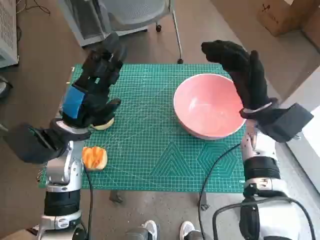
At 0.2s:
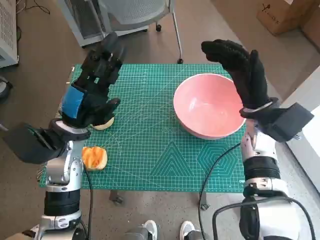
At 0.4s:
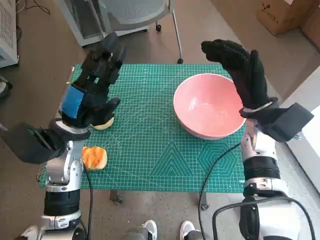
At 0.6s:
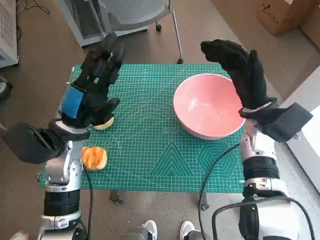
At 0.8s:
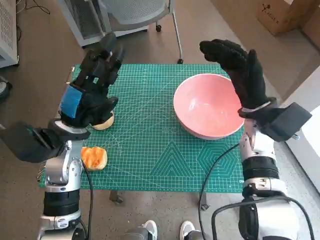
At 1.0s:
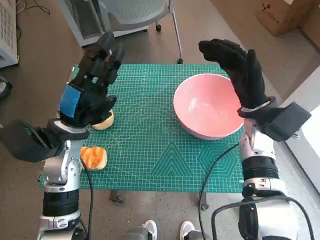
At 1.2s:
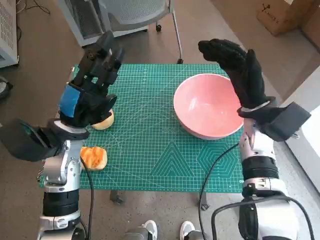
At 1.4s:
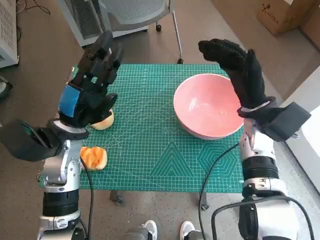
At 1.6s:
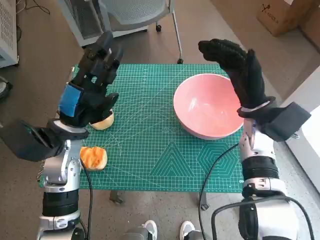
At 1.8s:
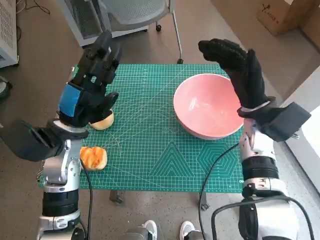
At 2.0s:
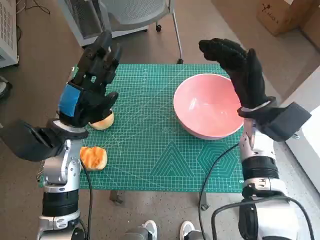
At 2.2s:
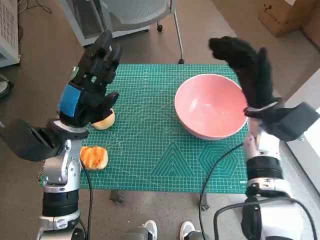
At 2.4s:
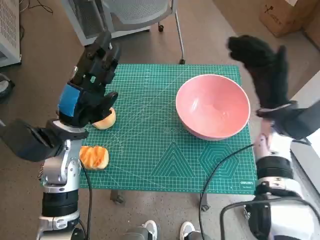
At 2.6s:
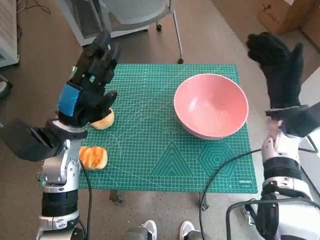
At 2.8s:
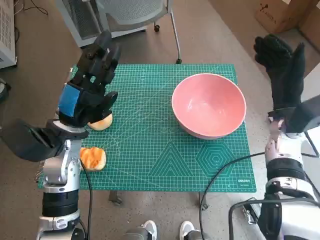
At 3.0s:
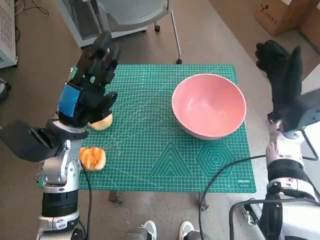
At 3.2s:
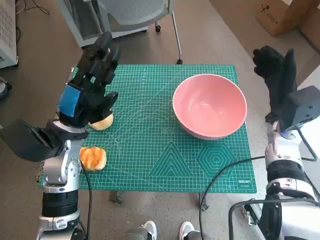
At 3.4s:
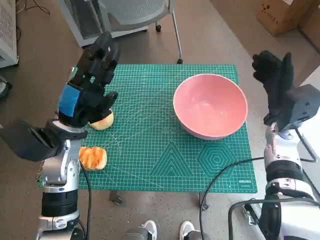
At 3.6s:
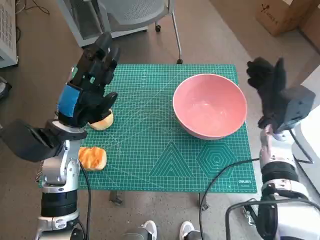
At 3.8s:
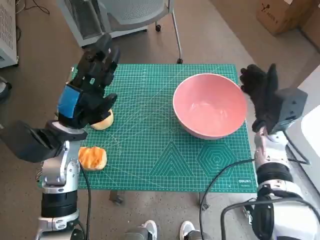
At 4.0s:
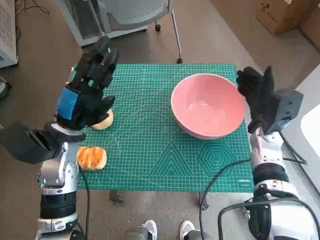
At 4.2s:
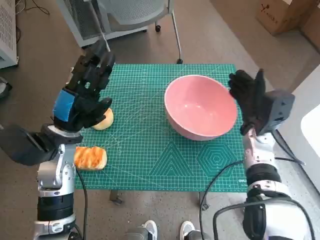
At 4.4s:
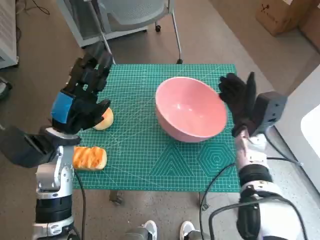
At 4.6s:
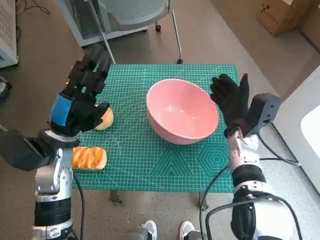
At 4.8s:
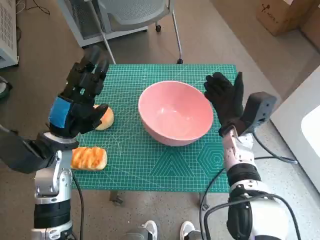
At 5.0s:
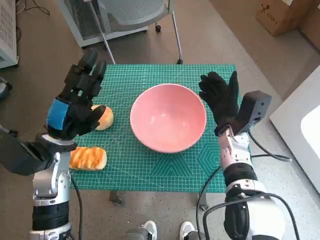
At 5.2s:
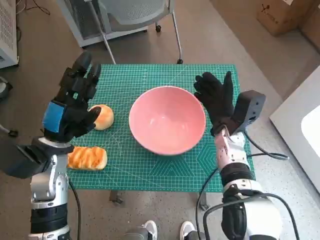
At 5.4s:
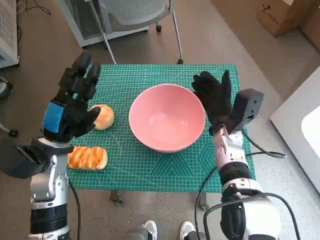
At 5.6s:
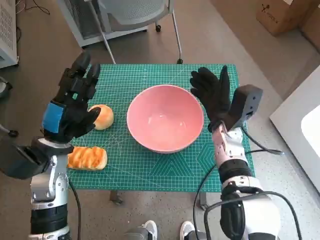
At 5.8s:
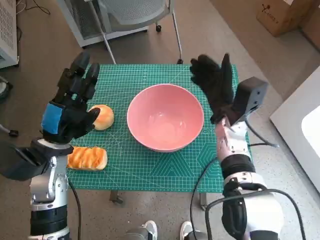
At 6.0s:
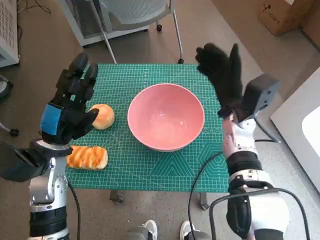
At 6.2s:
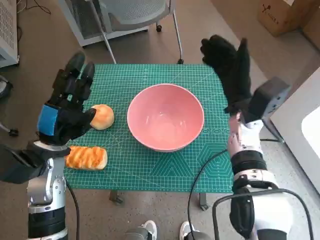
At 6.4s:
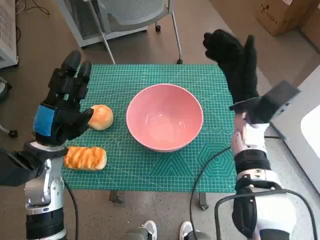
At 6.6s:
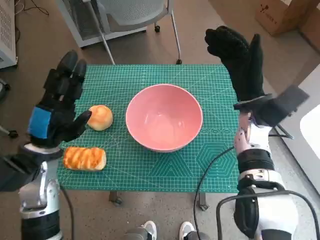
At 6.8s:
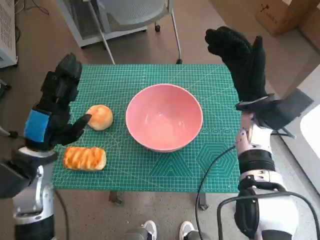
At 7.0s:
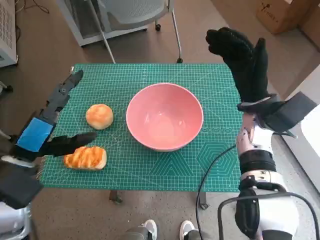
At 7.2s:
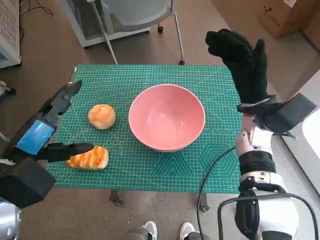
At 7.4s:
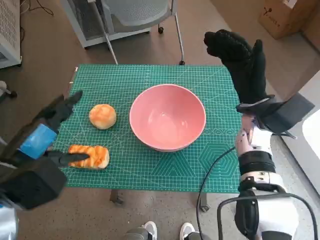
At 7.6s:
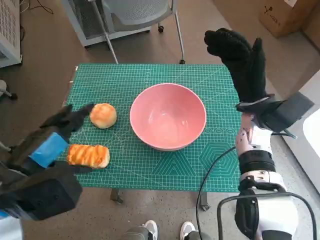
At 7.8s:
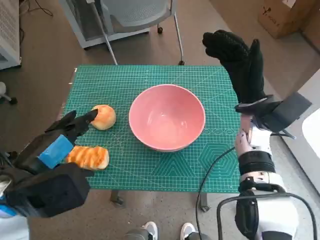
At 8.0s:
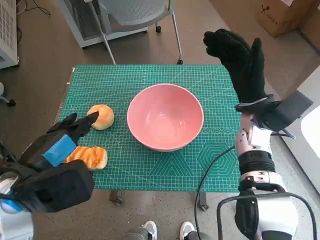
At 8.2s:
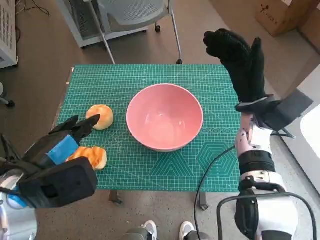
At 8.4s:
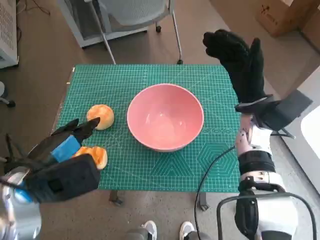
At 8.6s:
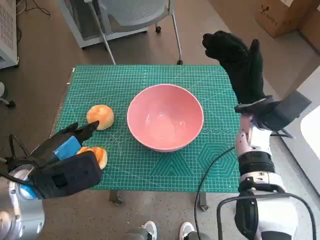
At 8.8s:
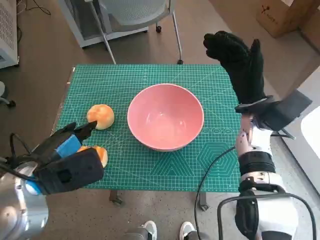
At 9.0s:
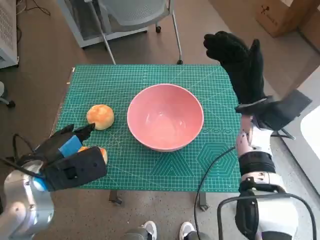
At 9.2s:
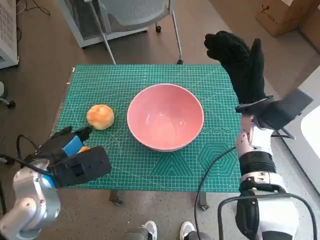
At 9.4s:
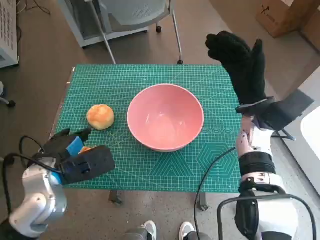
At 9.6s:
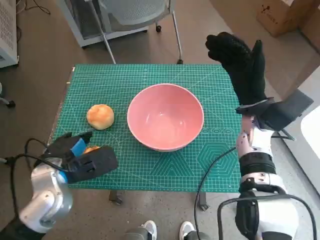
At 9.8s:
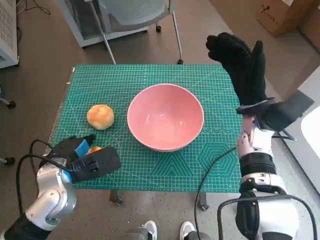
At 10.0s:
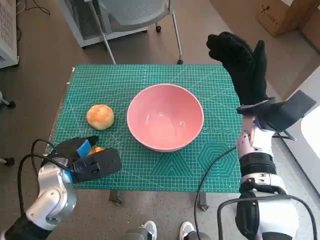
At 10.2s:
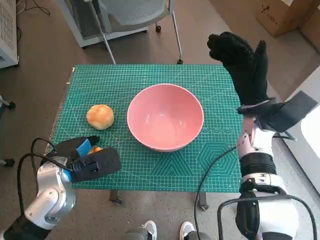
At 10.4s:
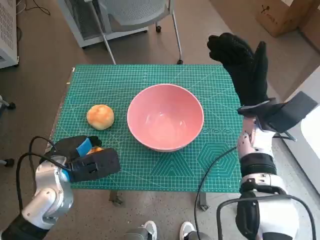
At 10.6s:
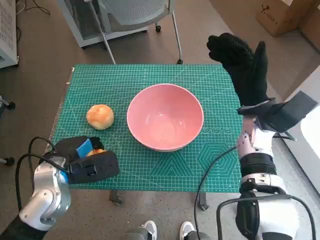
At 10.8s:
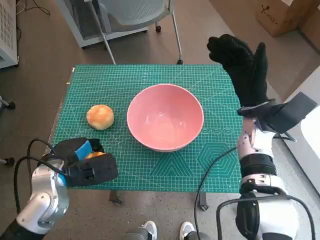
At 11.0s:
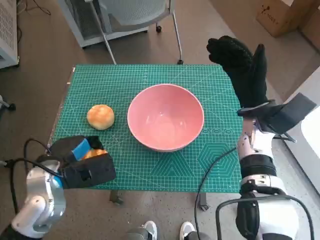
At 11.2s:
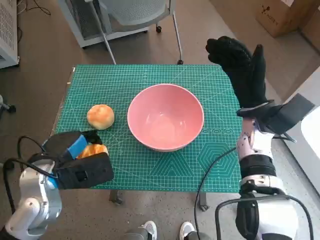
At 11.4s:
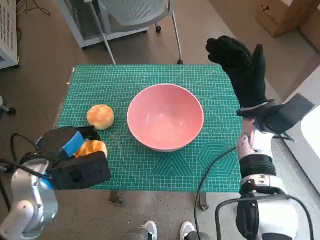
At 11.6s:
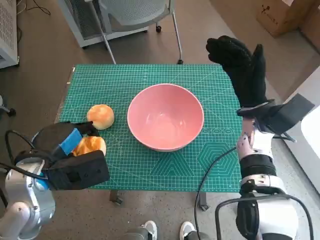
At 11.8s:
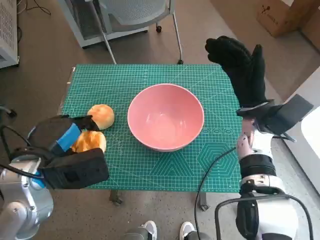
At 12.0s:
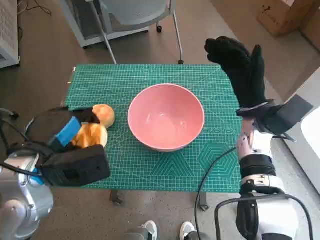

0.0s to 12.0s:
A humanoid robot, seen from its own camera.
Step, 0.0s to 5.6s: Move the pink bowl to the center of table with right hand.
Step, 5.8s to 10.4s: Grasp the long bread with left hand.
1.6s to 3.0s: The right hand travels to the right by about 5 cm.
3.0s to 4.4s: The right hand shifts approximately 5 cm downward and to the left.
4.4s to 6.0s: The right hand moves some 5 cm.
6.0s to 7.6s: The left hand travels backward and upward by roughly 10 cm. Meanwhile the right hand ends up some 5 cm from where it was.
7.6s to 9.0s: The left hand moves about 5 cm.
9.0s to 10.4s: The left hand goes about 5 cm downward.
10.4s to 12.0s: The left hand heads upward, covering roughly 10 cm.

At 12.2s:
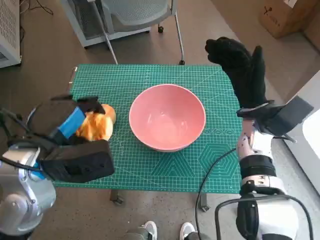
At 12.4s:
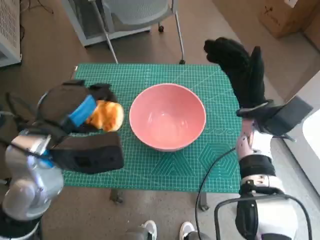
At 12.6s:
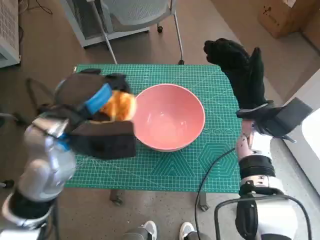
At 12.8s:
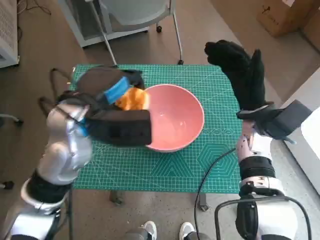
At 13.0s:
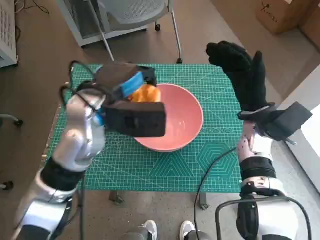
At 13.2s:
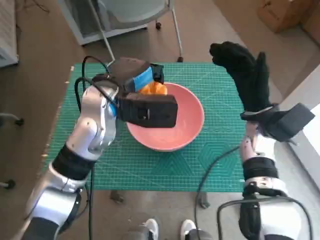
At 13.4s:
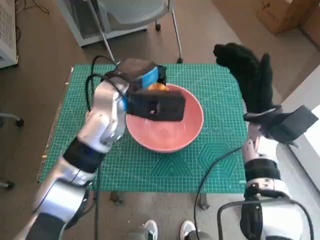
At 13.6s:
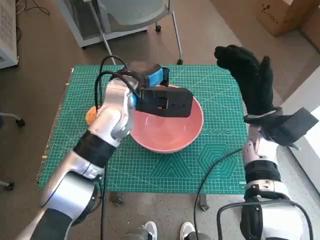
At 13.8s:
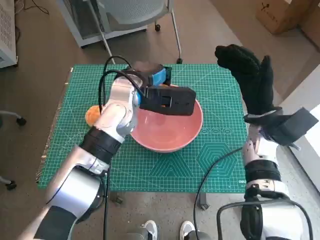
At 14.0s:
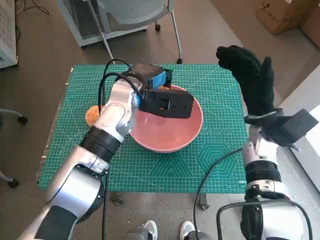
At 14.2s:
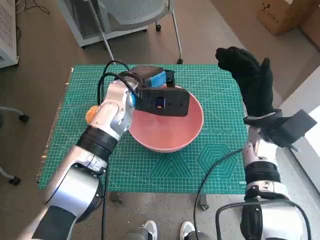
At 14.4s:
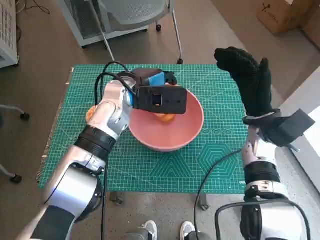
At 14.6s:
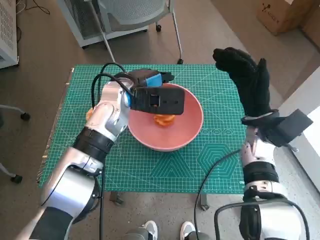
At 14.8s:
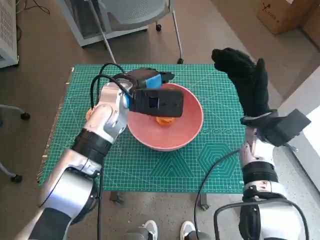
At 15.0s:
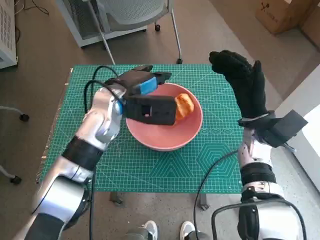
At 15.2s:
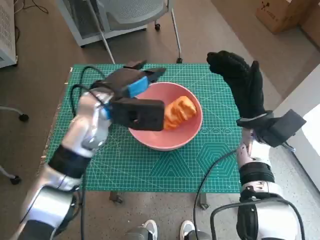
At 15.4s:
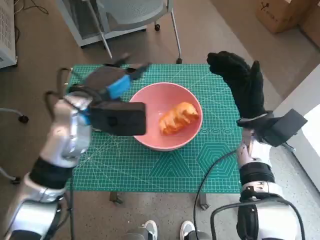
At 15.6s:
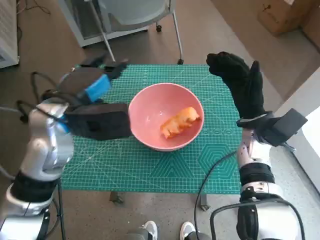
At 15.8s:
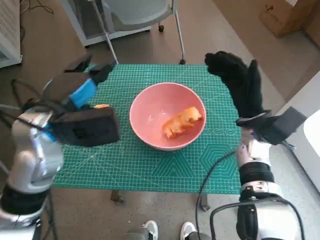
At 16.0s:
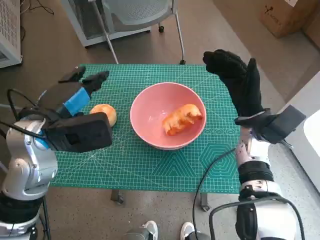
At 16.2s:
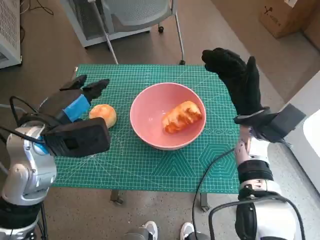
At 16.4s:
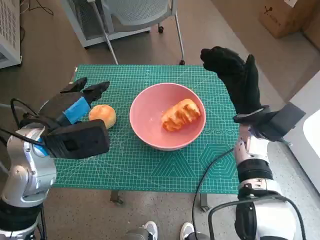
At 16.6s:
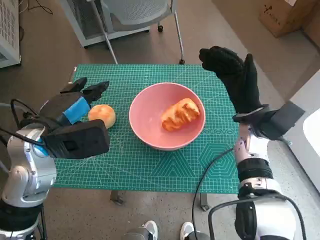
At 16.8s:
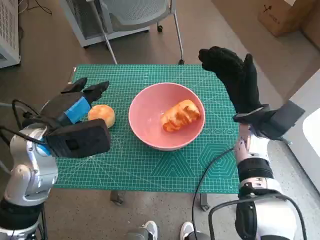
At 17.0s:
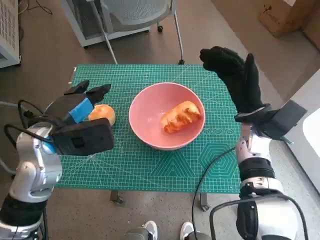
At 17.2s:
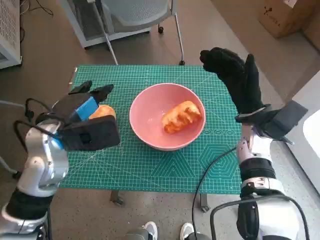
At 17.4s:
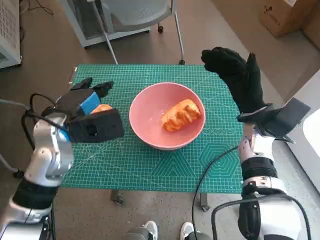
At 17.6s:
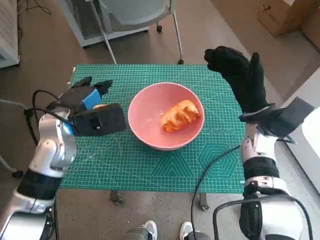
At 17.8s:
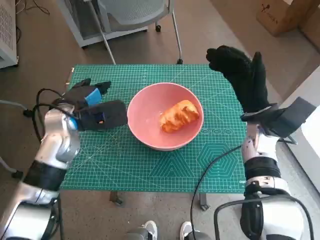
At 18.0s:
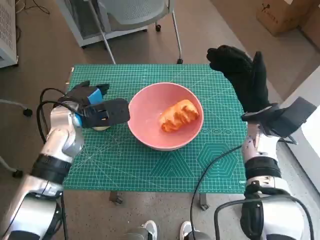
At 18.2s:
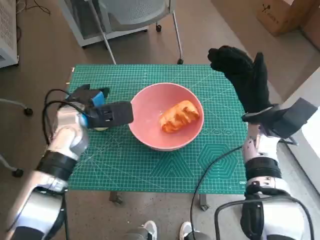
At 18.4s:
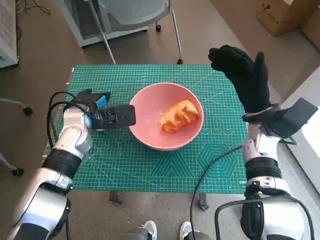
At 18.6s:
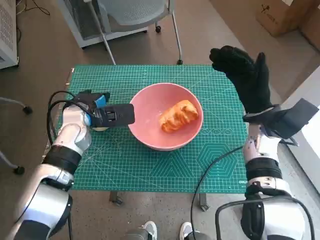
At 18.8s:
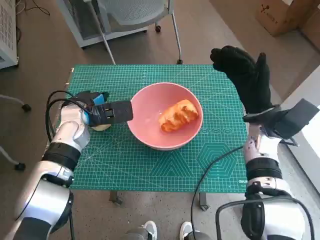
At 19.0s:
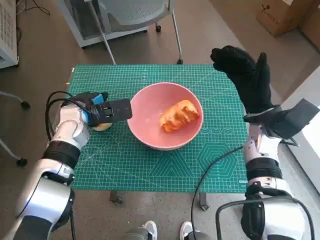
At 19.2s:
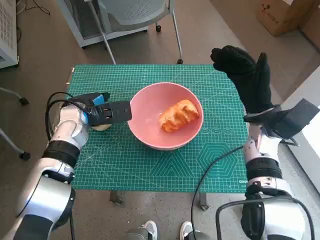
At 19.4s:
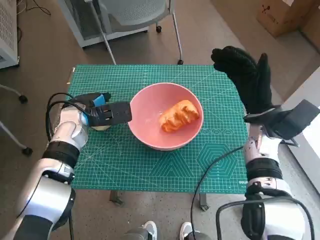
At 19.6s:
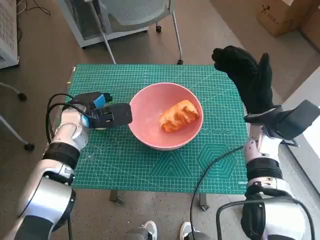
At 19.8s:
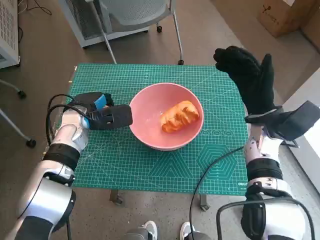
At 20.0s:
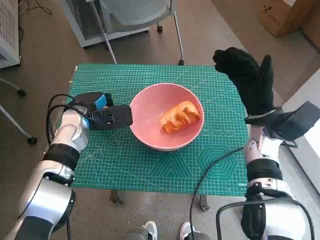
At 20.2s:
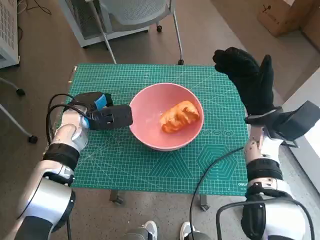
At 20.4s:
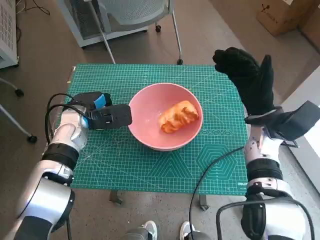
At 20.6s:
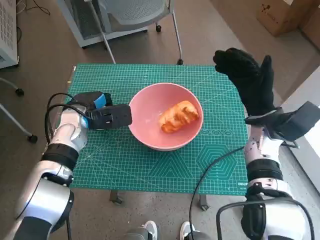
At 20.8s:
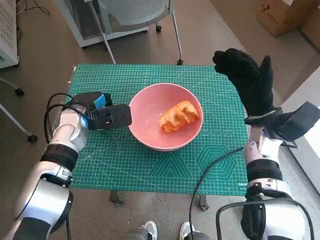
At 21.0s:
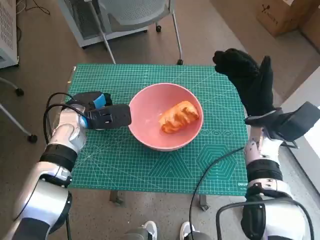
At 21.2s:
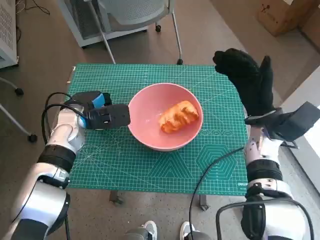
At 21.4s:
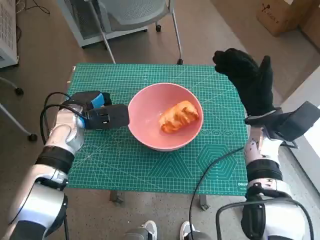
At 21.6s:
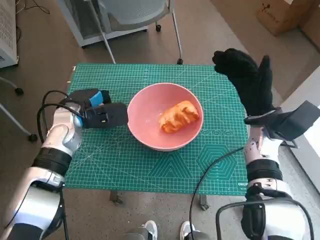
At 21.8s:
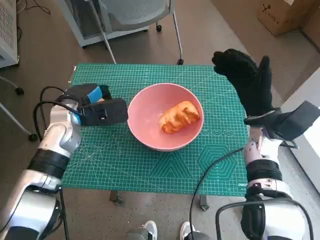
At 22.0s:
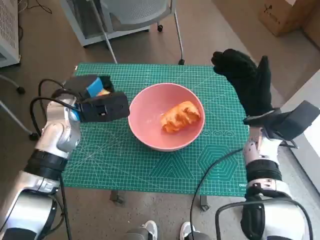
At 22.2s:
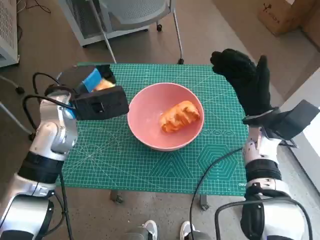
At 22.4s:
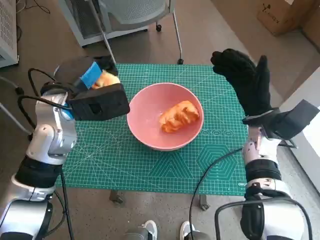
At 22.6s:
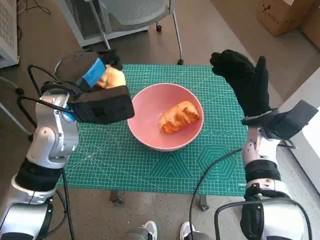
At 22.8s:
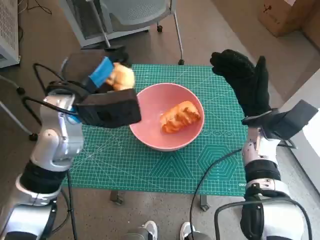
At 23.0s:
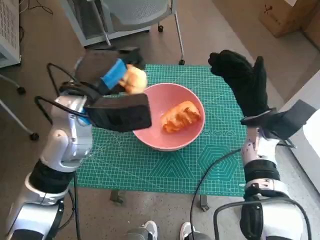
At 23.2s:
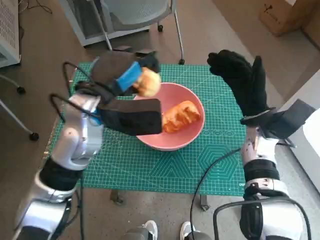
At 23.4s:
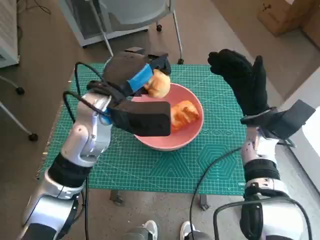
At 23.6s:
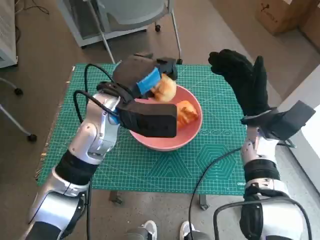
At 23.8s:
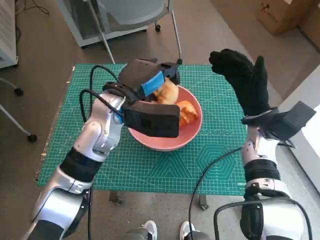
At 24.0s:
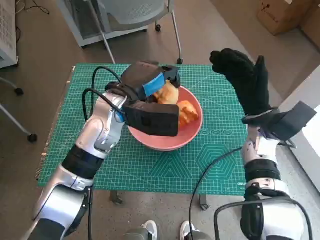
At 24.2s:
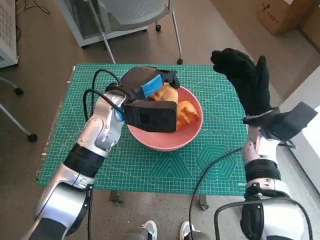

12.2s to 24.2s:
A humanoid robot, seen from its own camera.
Step, 12.2s to 14.8s: Place the long bread in pink bowl with left hand.
Step, 15.0s to 19.8s: Grasp the round bread with left hand.
12.2s to 13.8s: The left hand heads forward and to the right, covering some 20 cm.
15.2s to 16.6s: The left hand travels to the left and backward by roughly 15 cm.
16.6s to 18.2s: The left hand goes roughly 10 cm forward and downward.
18.2s to 19.8s: The hands move only a little.
19.8s to 21.2s: Both hands stay put.
21.2s to 22.6s: The left hand shifts approximately 10 cm upward.
22.6s to 24.2s: The left hand heads to the right, covering roughly 10 cm.
